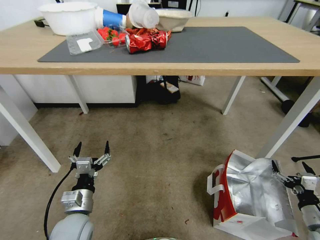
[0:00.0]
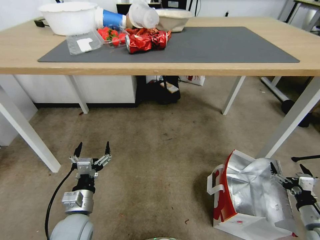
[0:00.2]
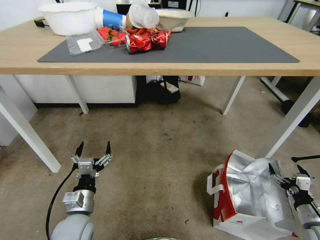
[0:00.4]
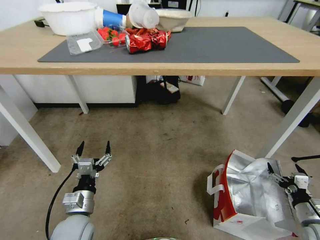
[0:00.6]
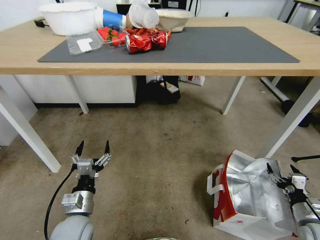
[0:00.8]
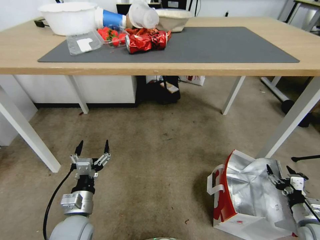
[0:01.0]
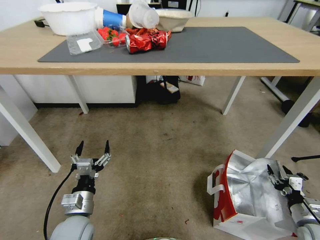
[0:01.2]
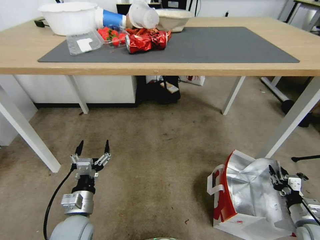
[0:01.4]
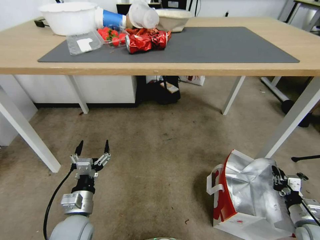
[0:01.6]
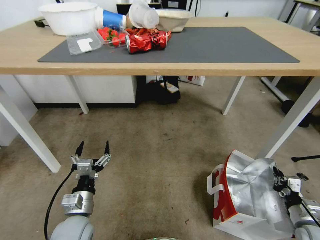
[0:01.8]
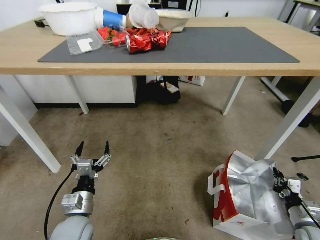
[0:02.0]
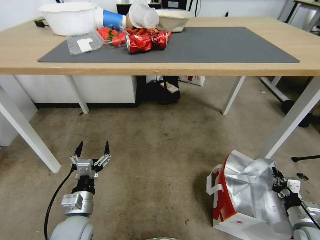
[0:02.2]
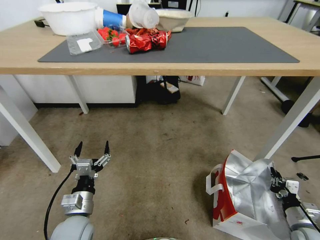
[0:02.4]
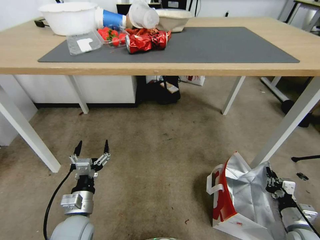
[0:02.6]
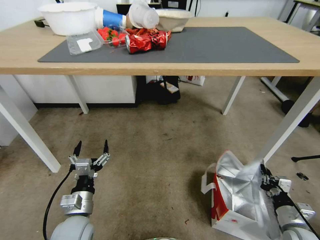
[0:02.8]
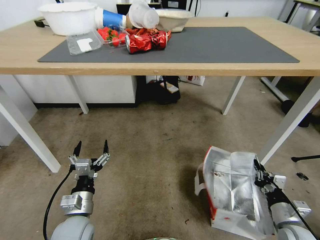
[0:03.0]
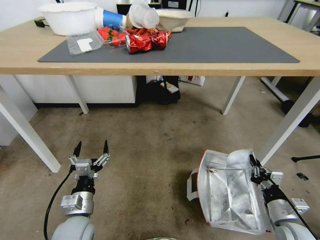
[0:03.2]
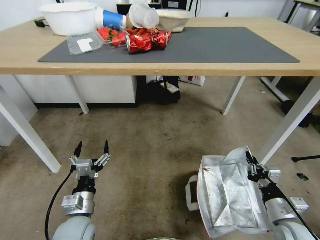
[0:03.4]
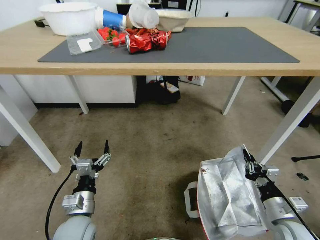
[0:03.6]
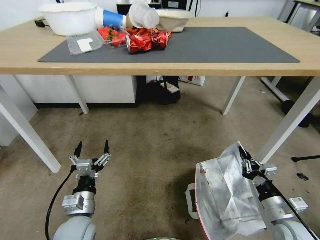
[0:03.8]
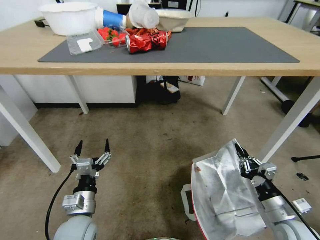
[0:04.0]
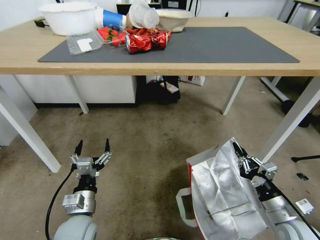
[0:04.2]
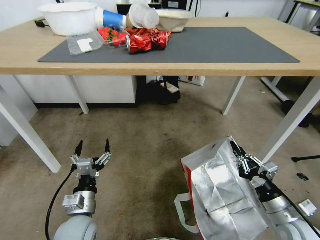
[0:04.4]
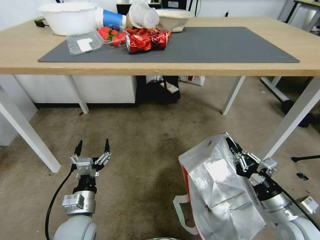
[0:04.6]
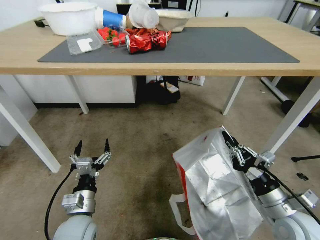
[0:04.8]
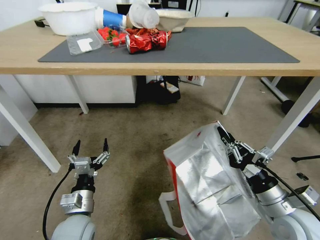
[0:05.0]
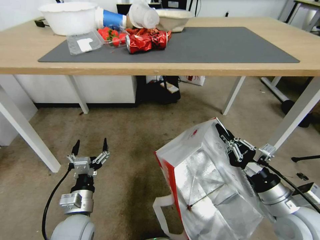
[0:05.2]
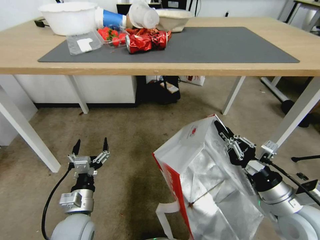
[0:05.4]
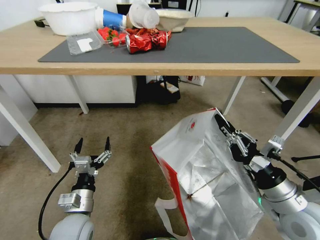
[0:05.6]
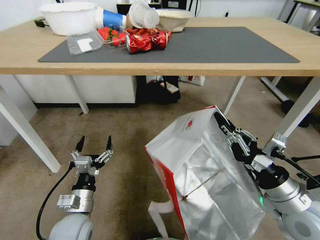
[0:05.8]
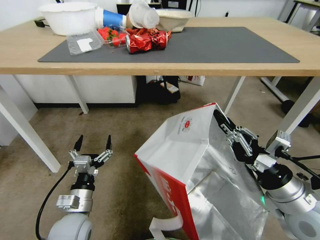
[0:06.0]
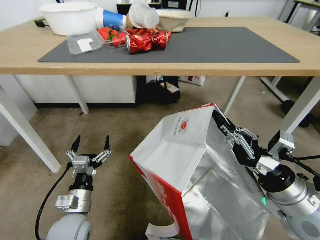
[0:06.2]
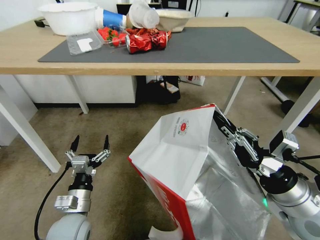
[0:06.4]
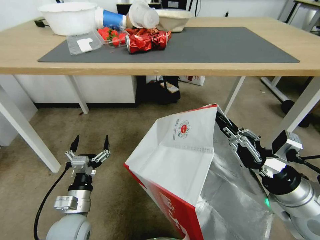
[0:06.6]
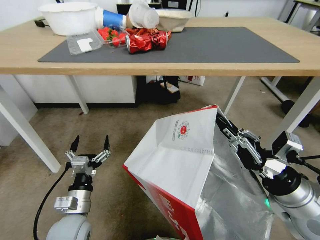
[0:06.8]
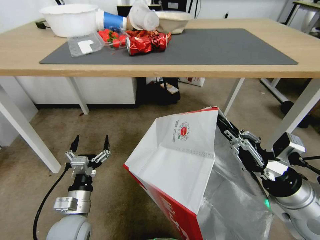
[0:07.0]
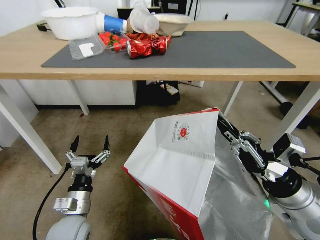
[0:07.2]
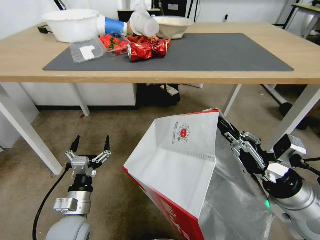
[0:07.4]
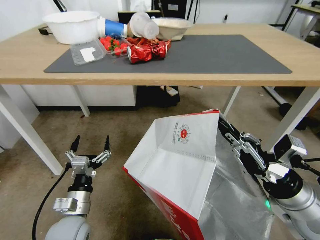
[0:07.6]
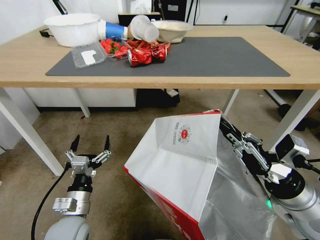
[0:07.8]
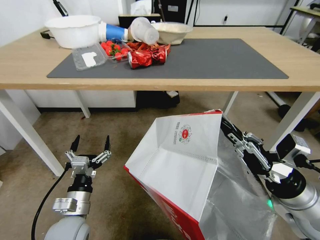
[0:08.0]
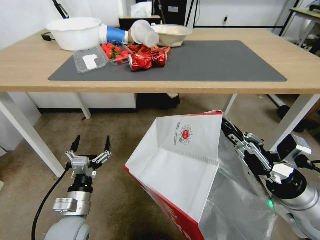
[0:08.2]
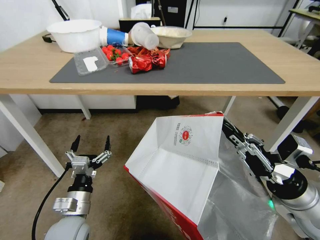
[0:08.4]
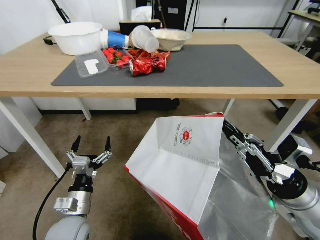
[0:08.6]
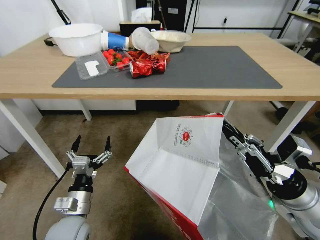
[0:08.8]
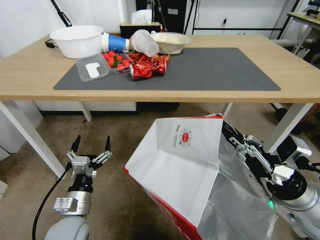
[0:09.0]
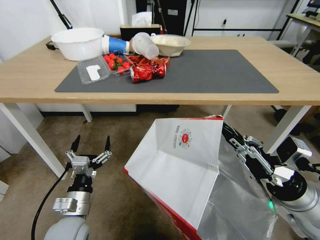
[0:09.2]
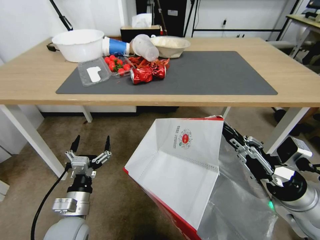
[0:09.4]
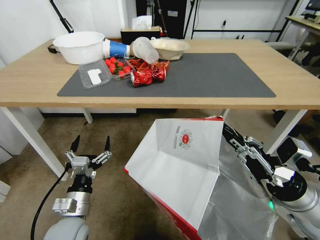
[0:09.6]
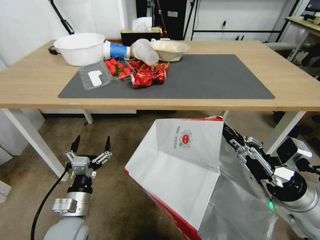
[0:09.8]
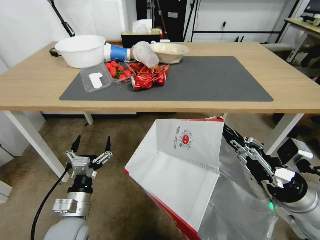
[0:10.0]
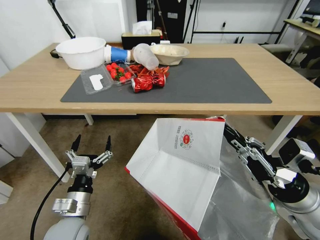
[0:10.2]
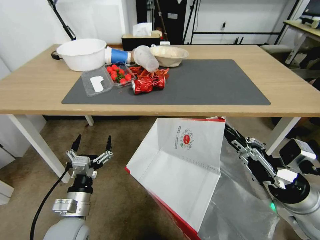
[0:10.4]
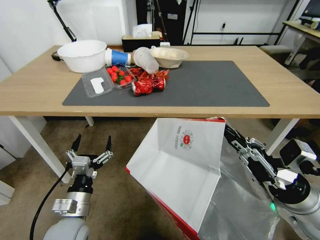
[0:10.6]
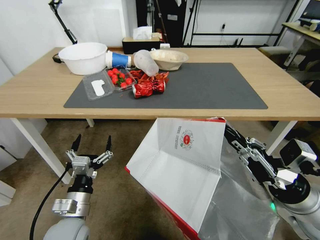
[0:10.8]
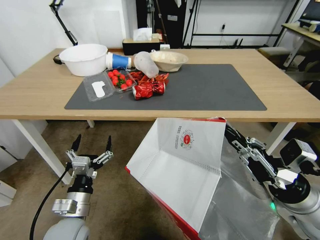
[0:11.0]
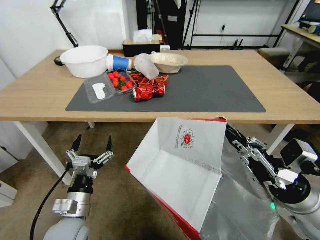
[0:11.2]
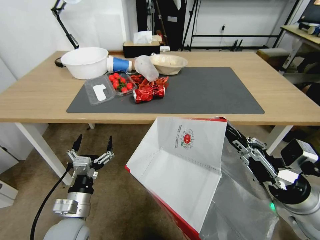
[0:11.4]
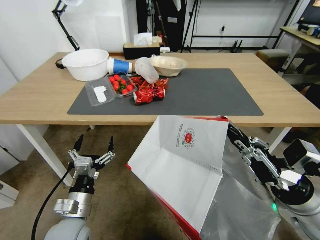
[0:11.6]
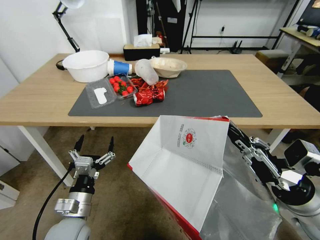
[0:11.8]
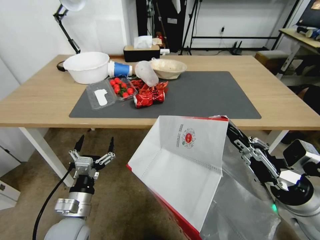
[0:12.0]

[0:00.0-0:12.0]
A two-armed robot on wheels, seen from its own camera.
Task of the whole recording: Pick up the food delivery bag from the floor and place it on the table.
0:00.0 to 0:01.6: The right gripper closes up.
0:01.6 to 0:03.0: The right gripper goes approximately 10 cm to the left.
0:03.0 to 0:04.4: The right gripper moves upward, some 5 cm.
0:04.4 to 0:06.0: The right gripper travels upward and to the left by about 15 cm.

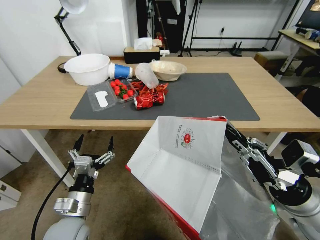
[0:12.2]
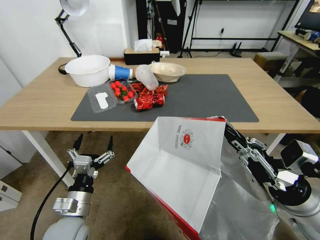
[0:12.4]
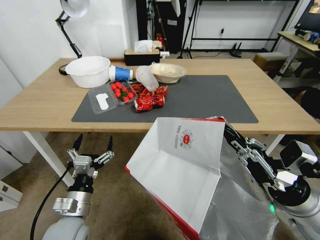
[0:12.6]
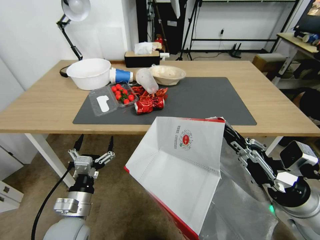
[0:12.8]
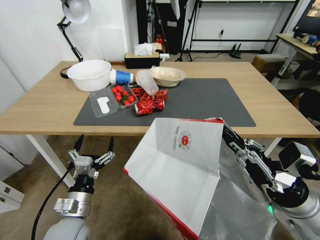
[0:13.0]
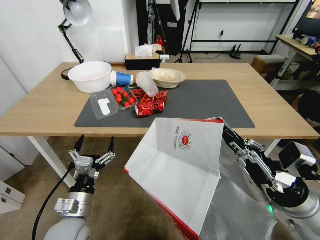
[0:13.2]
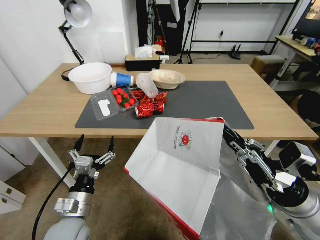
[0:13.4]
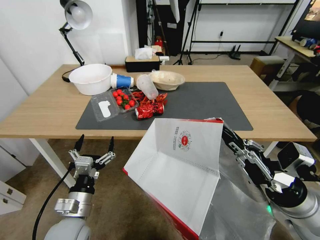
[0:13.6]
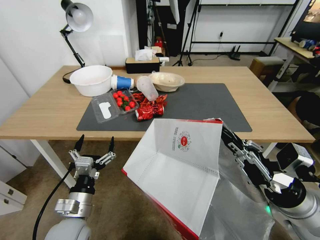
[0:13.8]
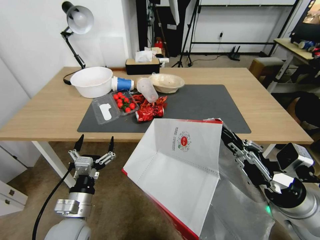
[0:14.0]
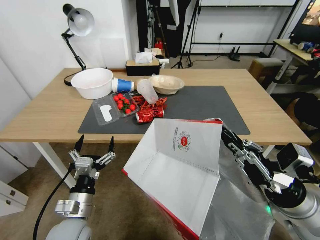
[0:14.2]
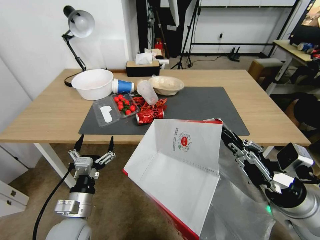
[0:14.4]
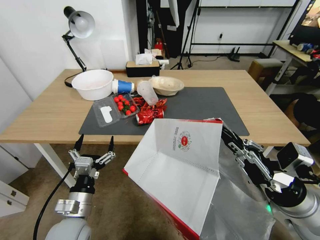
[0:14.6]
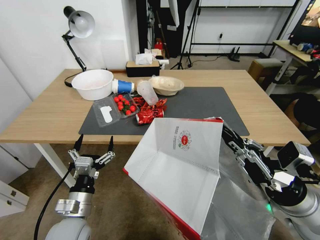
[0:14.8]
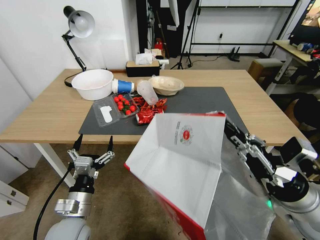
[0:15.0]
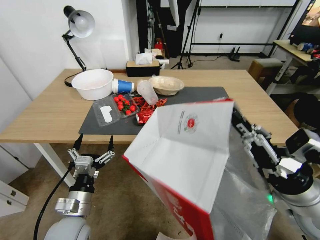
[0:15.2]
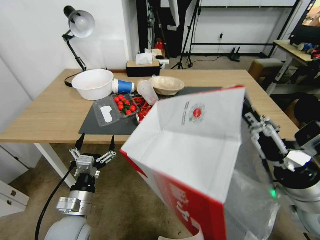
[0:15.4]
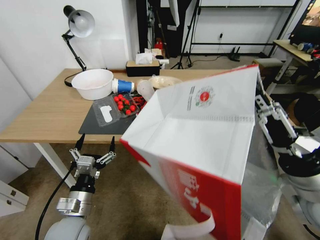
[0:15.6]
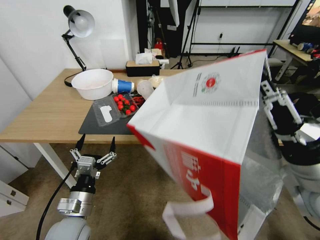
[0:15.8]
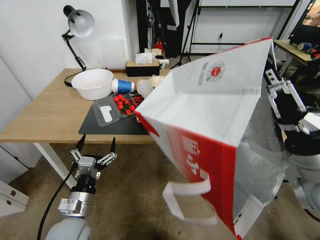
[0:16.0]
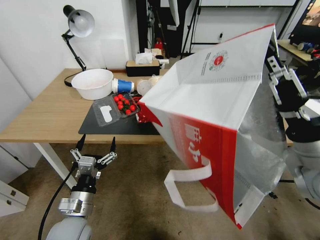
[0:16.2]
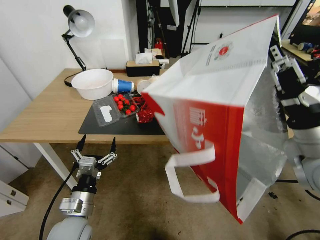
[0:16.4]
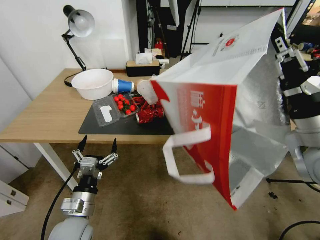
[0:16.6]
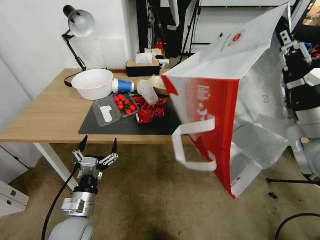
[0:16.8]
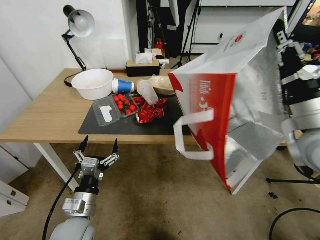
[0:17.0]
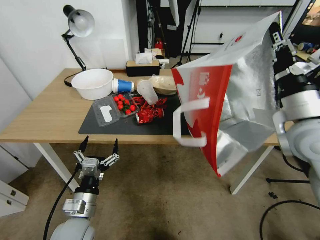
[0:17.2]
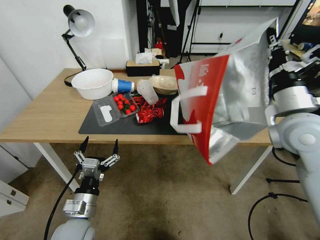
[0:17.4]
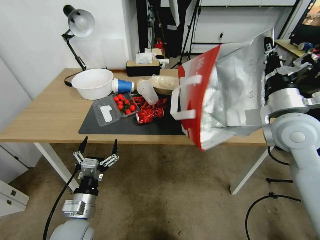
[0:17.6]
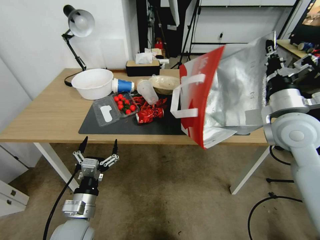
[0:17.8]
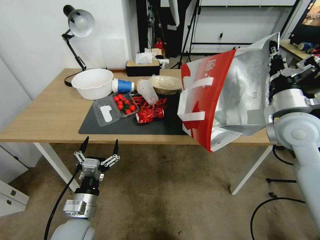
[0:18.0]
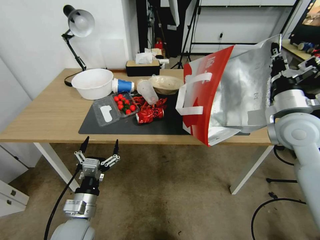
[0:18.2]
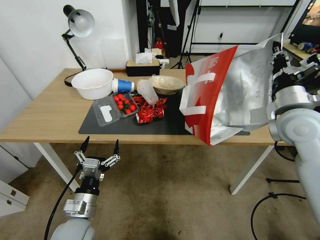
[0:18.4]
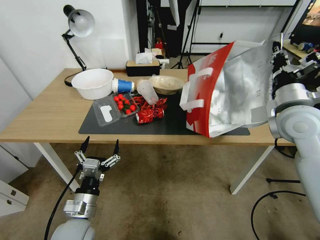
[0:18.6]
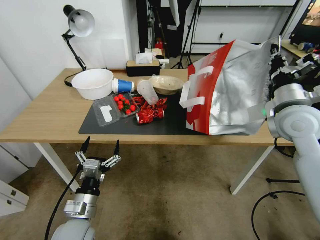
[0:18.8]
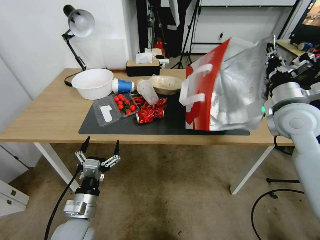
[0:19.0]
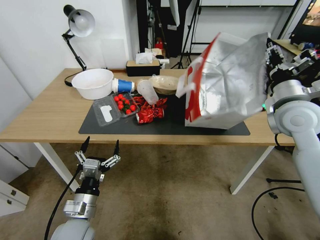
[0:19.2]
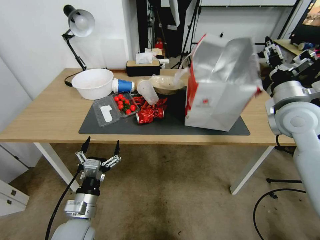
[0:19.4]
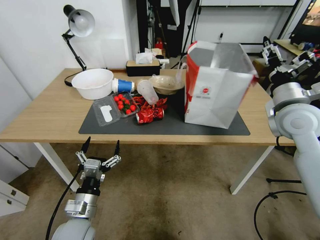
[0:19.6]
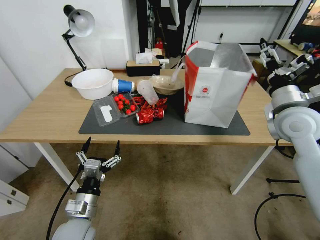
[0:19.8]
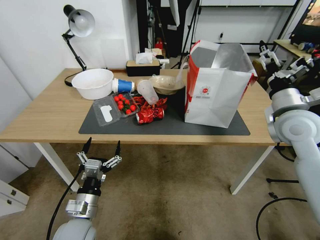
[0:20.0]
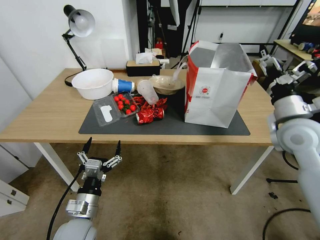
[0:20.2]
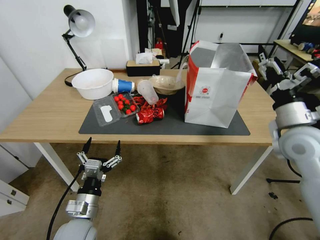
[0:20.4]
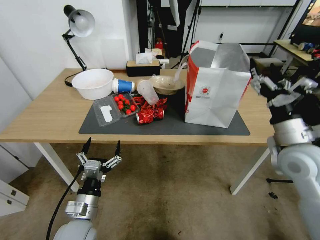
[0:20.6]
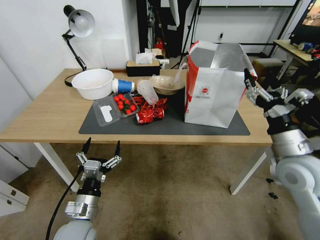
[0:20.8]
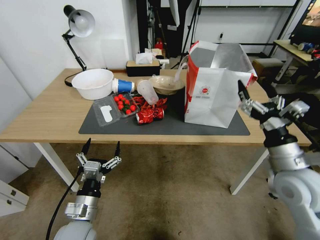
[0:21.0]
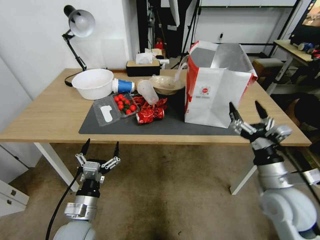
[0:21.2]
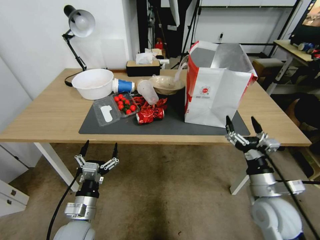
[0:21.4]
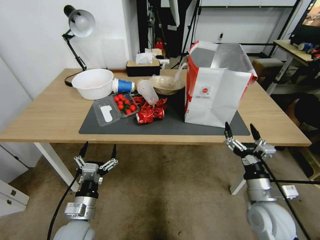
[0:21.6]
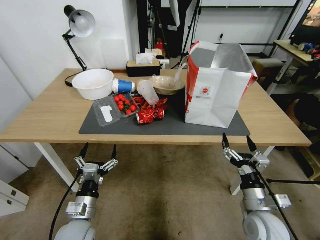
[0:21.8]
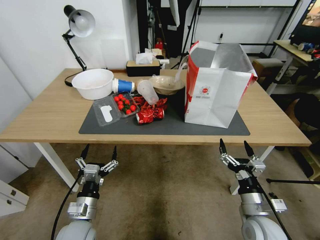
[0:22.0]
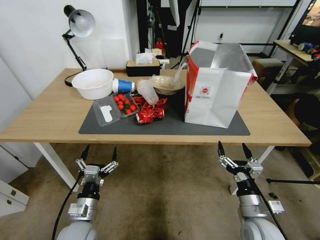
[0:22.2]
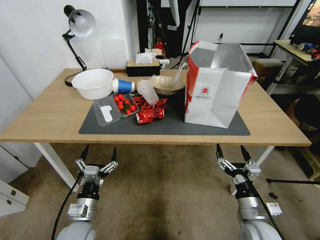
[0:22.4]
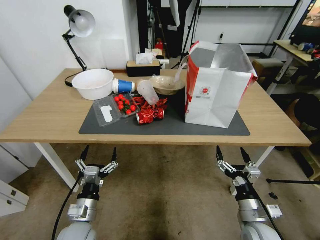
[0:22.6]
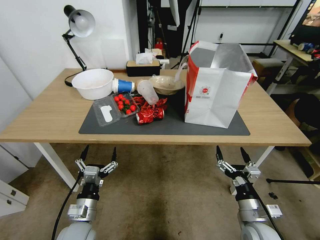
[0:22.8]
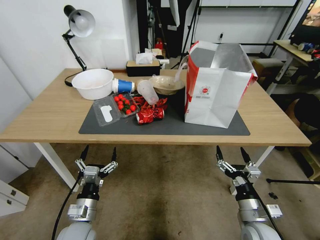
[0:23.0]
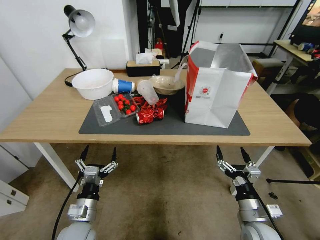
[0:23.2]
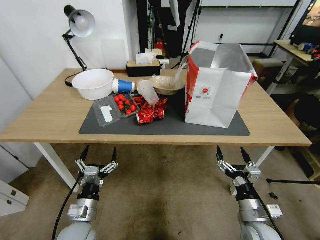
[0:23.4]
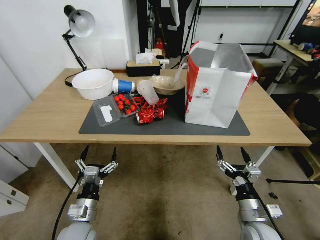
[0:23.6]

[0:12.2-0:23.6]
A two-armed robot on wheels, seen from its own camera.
Task of the whole recording: Pick up the food delivery bag from the floor and place it on the table.
0:15.0 to 0:16.4: The right gripper travels upward by approximately 10 cm.
0:16.4 to 0:17.8: The right gripper moves forward, about 10 cm.
0:17.8 to 0:19.4: The right gripper opens up.
0:19.4 to 0:20.8: The right gripper shifts approximately 15 cm backward and downward, and opens up.
0:20.8 to 0:22.2: The right gripper heads downward and backward, covering about 20 cm.
0:22.2 to 0:23.6: Both grippers stay about where they are.
